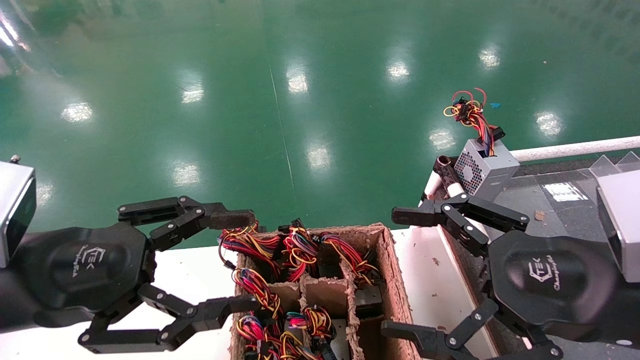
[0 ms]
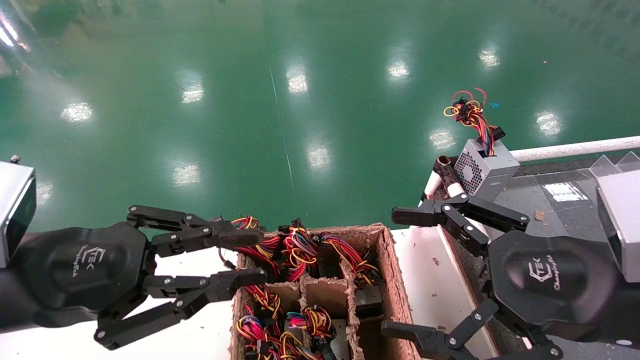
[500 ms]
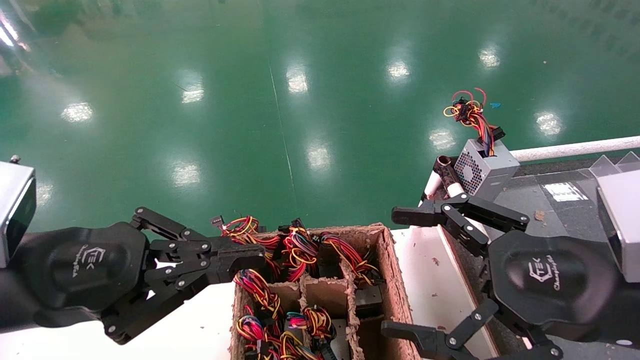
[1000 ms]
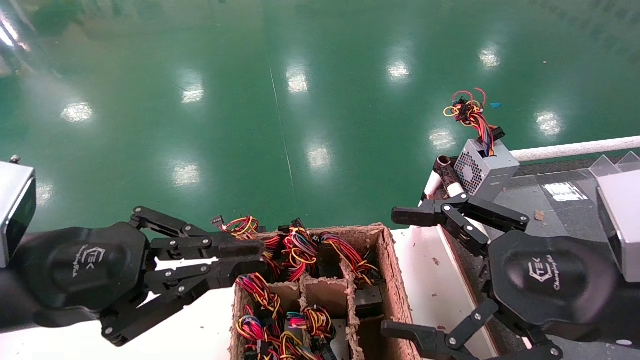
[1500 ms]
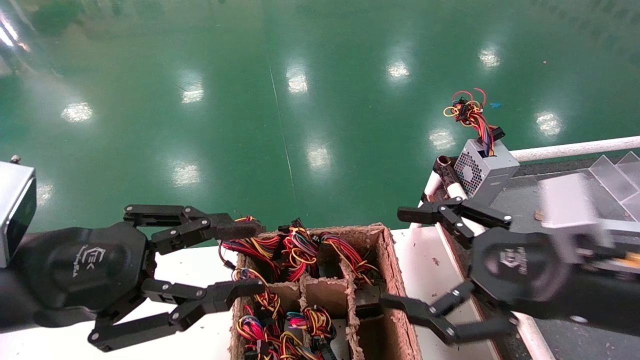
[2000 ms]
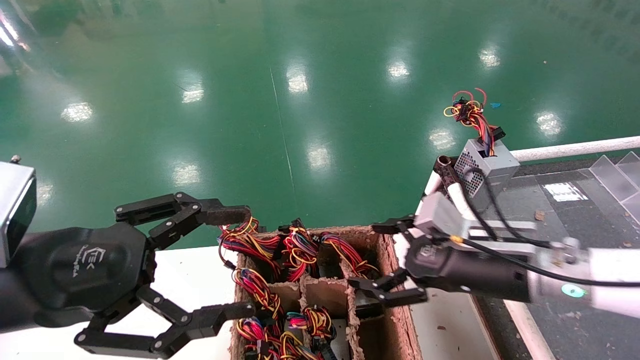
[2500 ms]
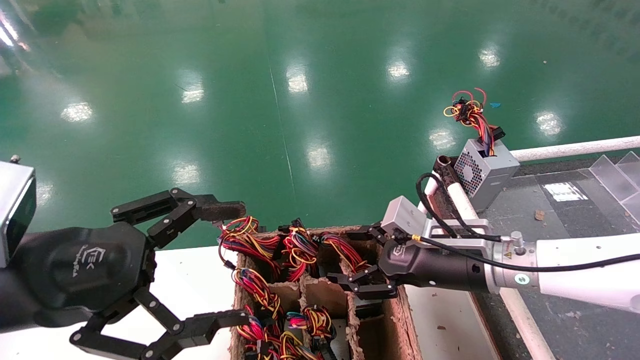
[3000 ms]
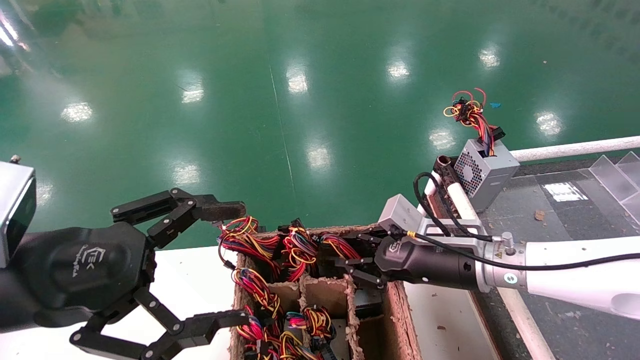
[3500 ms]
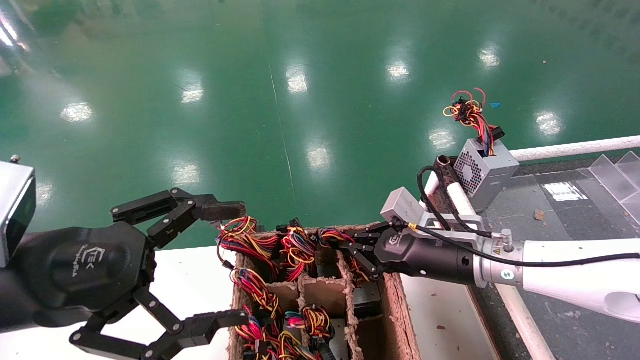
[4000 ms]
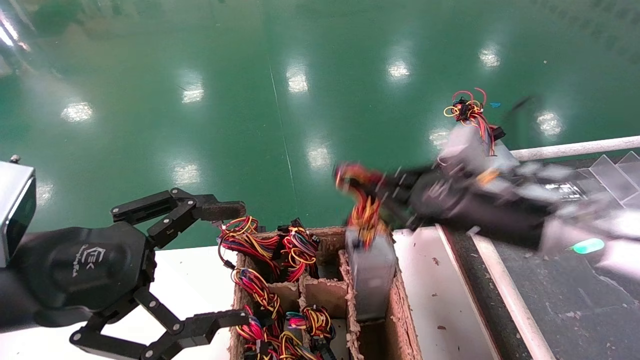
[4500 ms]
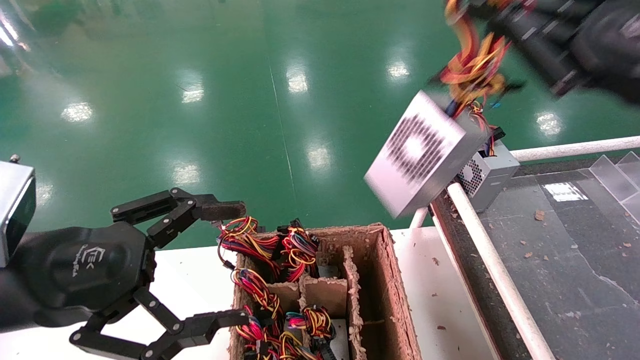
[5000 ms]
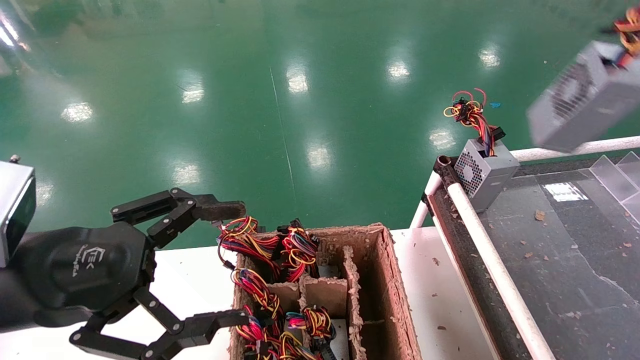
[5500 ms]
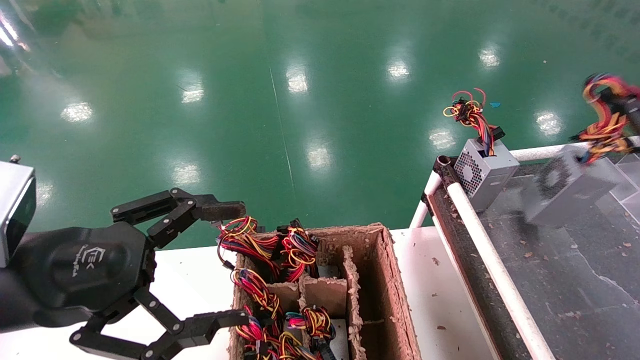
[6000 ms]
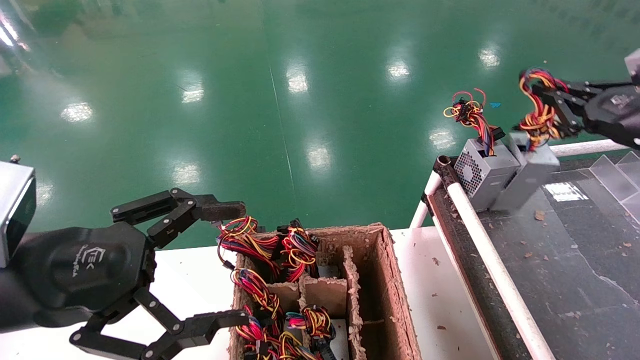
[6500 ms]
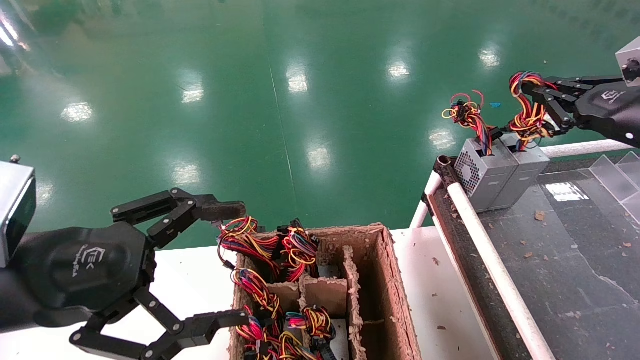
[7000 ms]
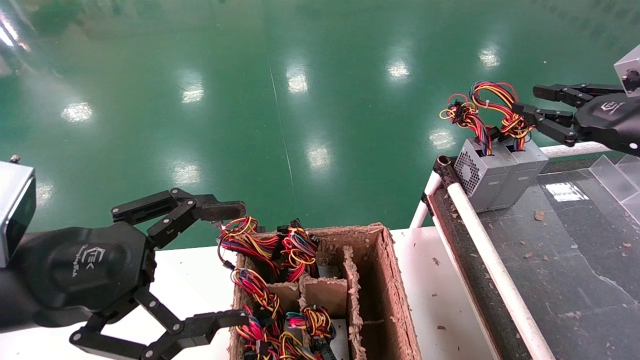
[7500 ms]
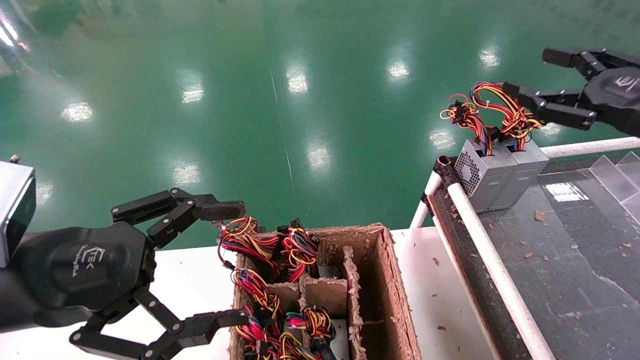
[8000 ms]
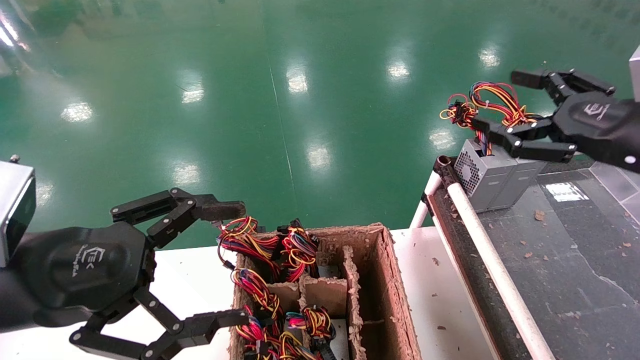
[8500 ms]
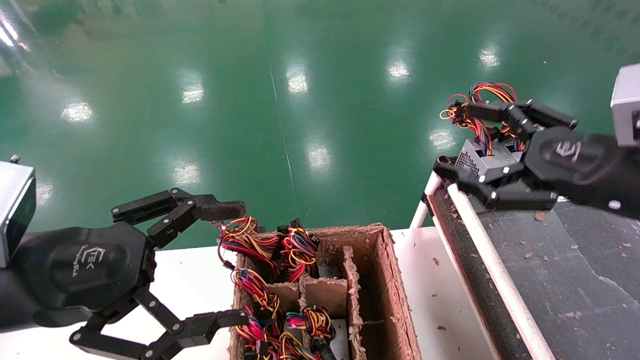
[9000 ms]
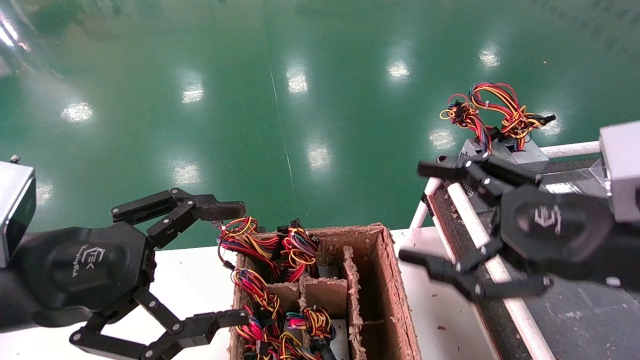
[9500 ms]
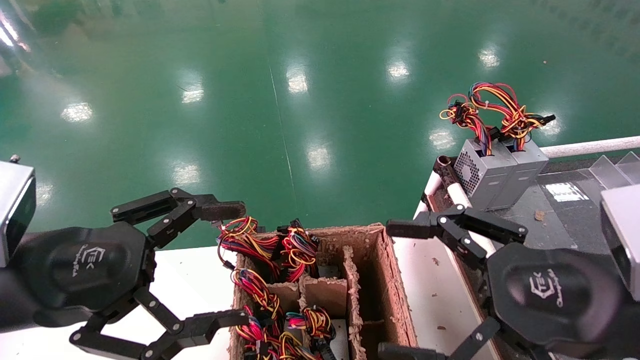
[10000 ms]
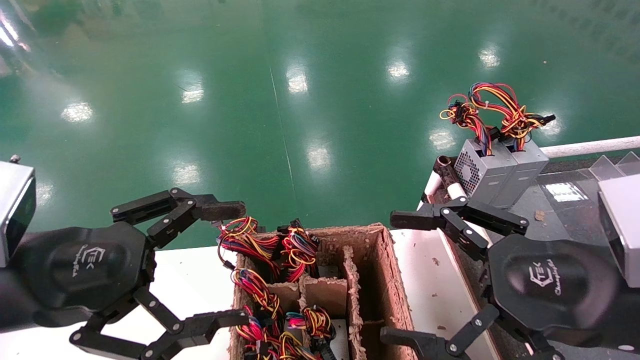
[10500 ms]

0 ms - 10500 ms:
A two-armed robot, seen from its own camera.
Step, 2000 ms - 3500 ms: Grab and lift the power supply from the large box.
Step, 4000 ms - 7000 ms: Place the power supply on the operating table.
0 ms - 2000 ms: The left gripper closes its fingers. The right gripper moves roughly 5 cm.
2000 ms - 4000 ms: The left gripper opens its fingers, while the right gripper goes about 15 cm forward, to the left and downward, and closes up.
4000 ms - 6500 ms: The right gripper heads to the right and upward, covering about 30 cm.
6500 ms - 8500 ms: The right gripper moves to the left, roughly 5 cm, and opens.
8500 ms - 10500 ms: The right gripper is displaced backward, to the left and downward by roughly 15 cm.
